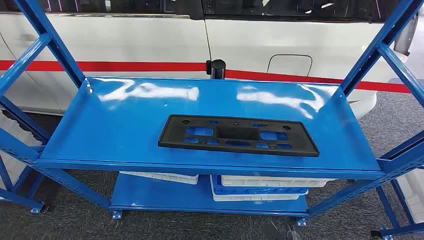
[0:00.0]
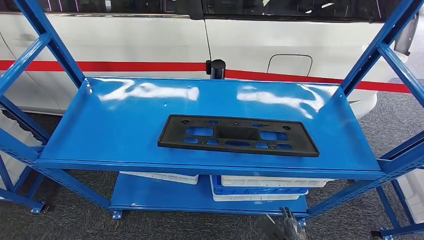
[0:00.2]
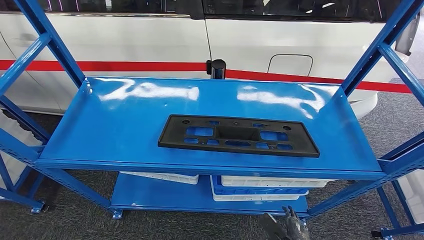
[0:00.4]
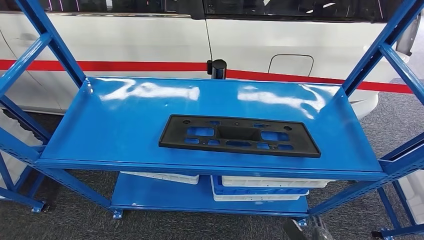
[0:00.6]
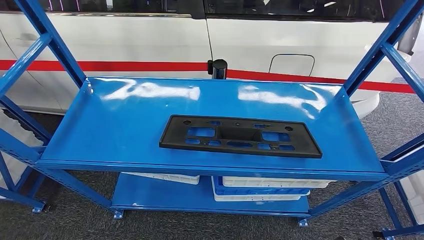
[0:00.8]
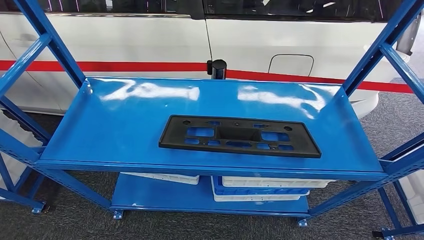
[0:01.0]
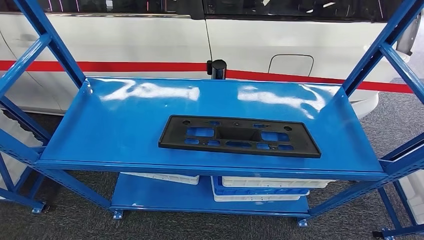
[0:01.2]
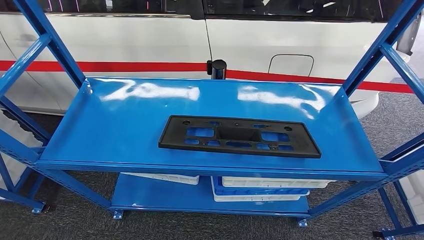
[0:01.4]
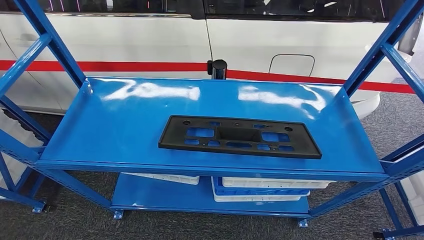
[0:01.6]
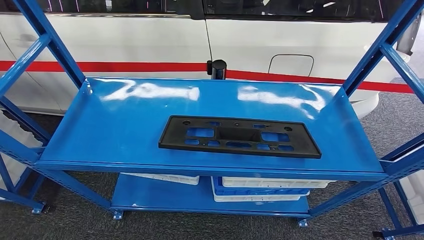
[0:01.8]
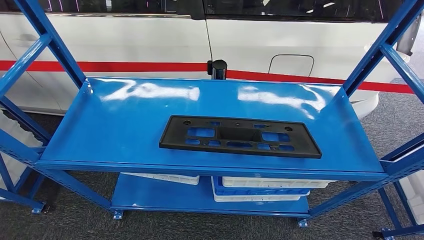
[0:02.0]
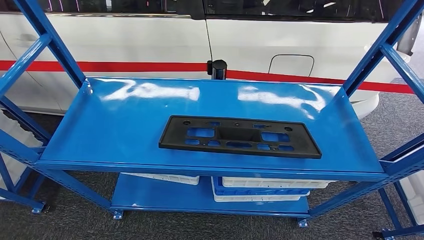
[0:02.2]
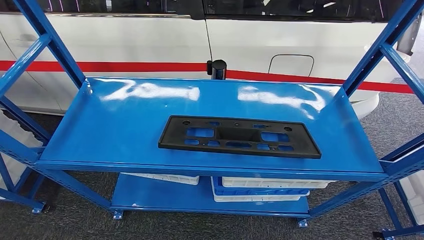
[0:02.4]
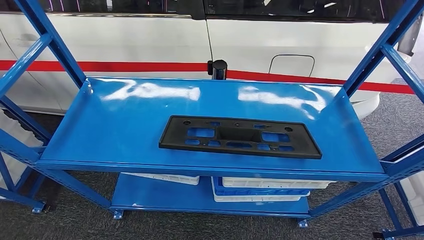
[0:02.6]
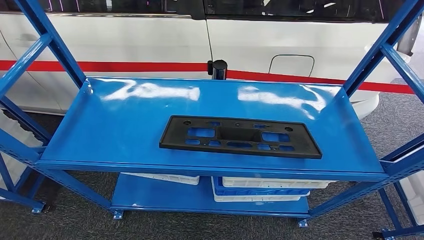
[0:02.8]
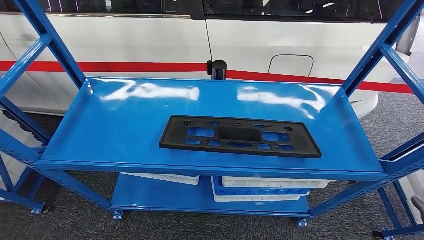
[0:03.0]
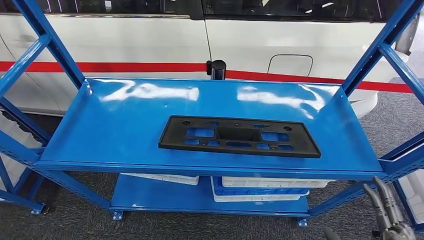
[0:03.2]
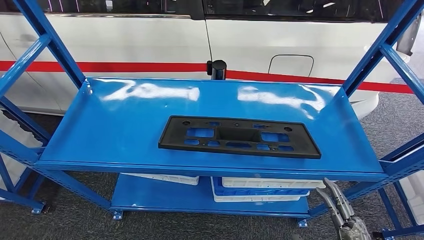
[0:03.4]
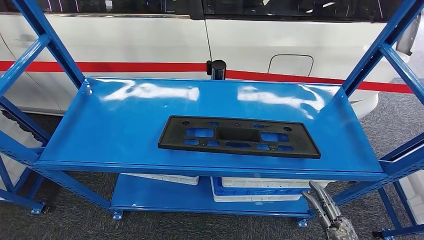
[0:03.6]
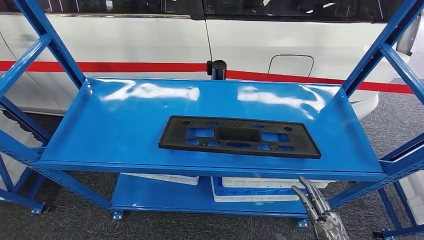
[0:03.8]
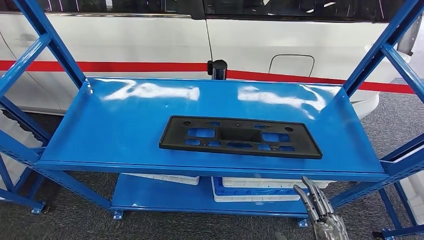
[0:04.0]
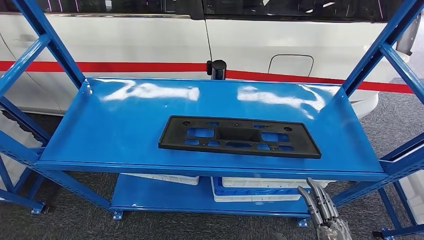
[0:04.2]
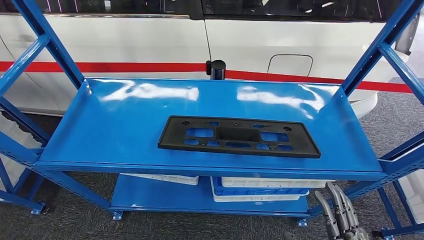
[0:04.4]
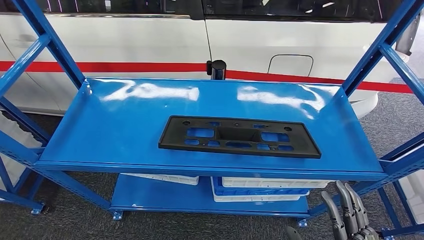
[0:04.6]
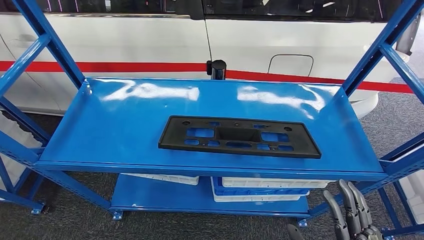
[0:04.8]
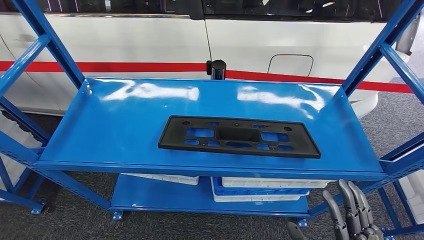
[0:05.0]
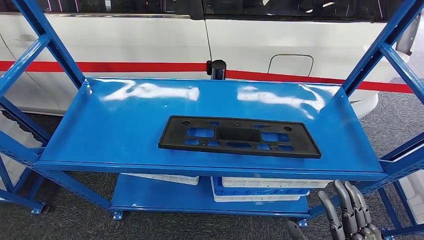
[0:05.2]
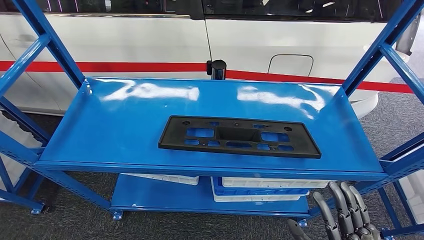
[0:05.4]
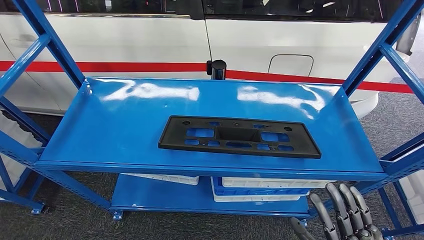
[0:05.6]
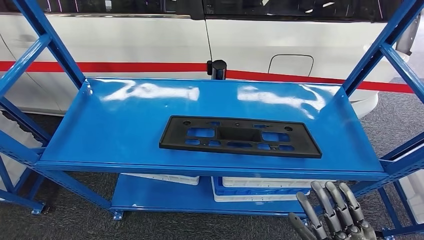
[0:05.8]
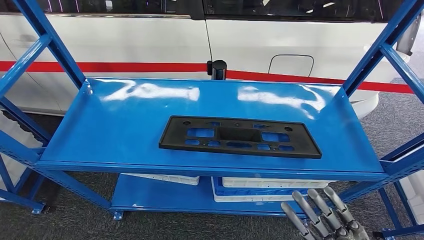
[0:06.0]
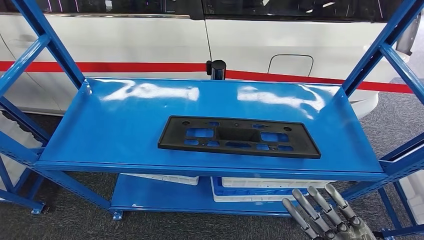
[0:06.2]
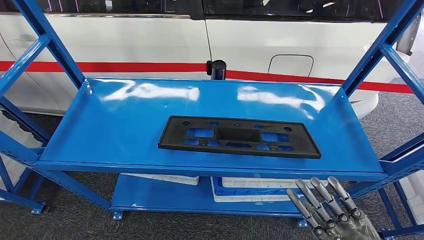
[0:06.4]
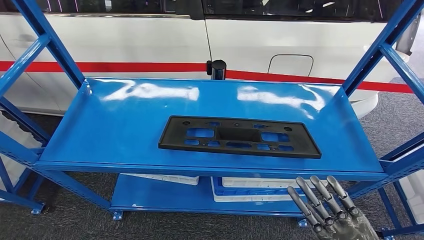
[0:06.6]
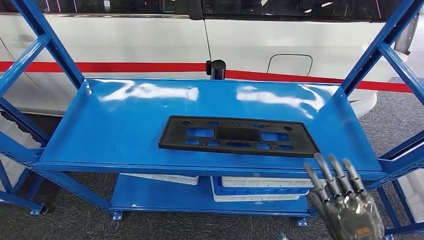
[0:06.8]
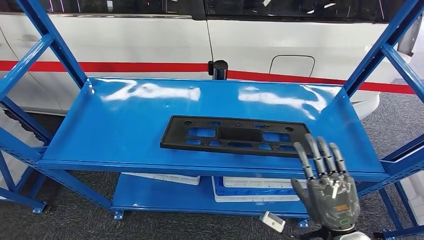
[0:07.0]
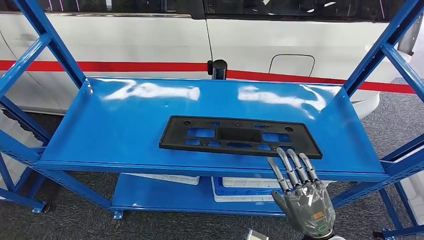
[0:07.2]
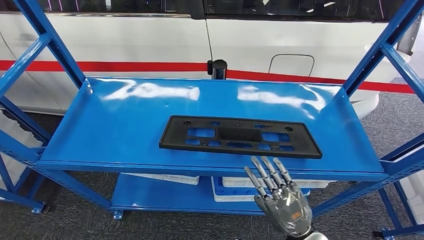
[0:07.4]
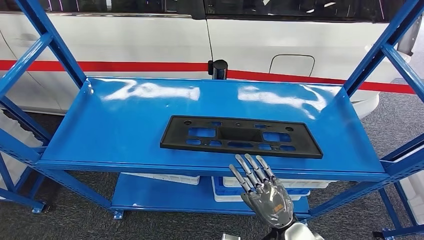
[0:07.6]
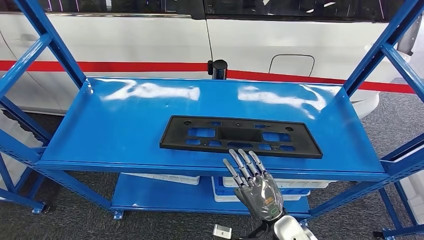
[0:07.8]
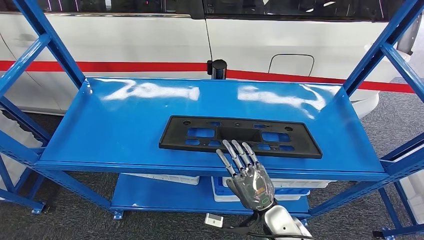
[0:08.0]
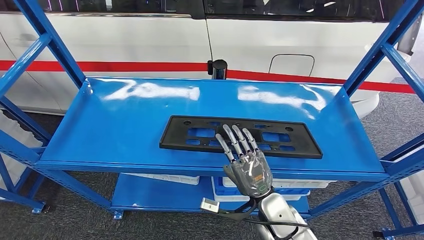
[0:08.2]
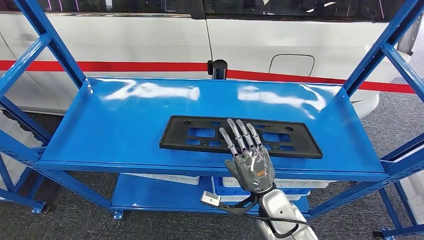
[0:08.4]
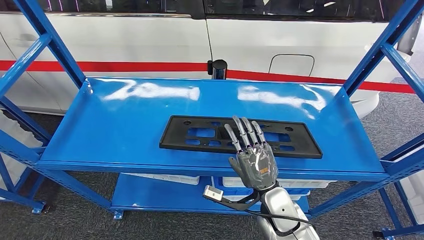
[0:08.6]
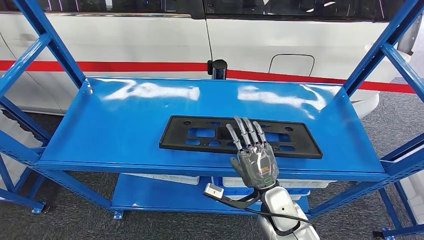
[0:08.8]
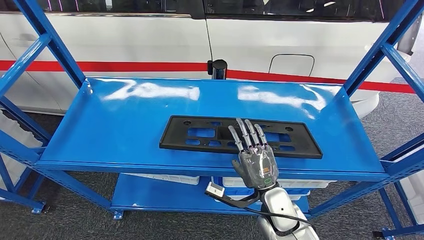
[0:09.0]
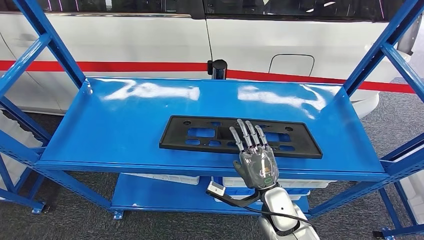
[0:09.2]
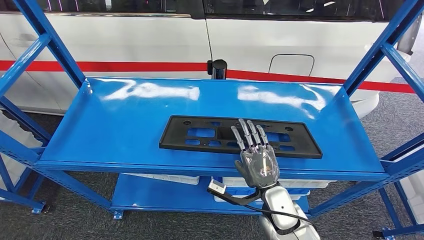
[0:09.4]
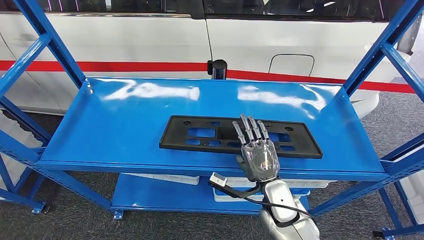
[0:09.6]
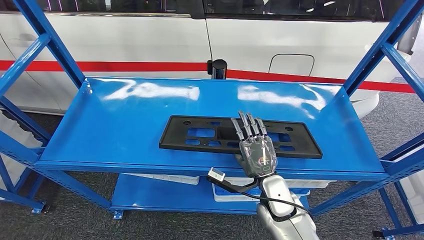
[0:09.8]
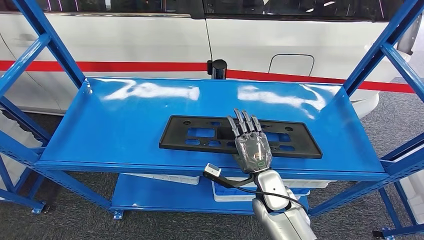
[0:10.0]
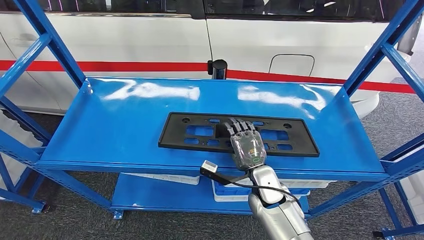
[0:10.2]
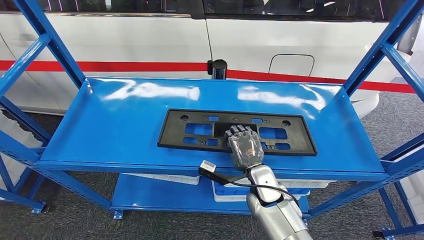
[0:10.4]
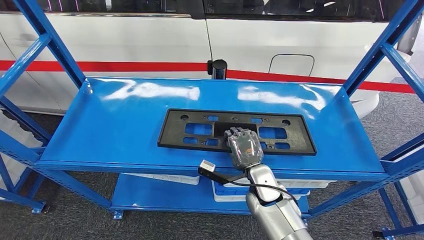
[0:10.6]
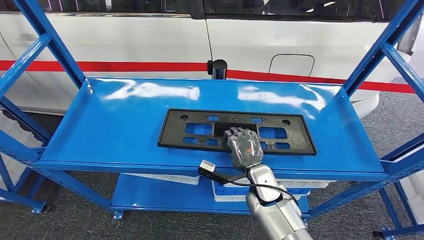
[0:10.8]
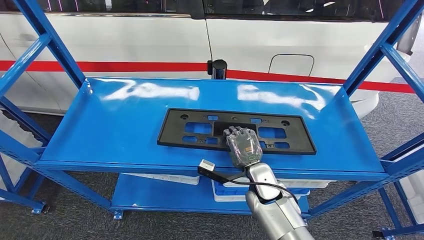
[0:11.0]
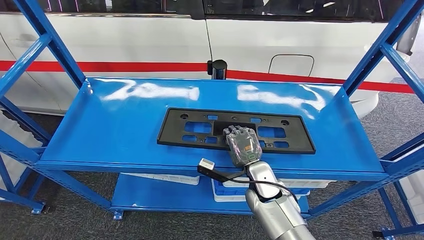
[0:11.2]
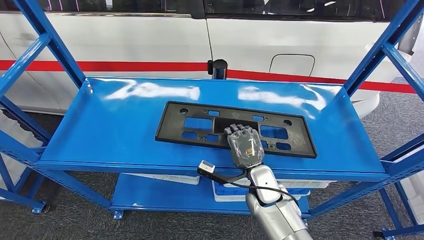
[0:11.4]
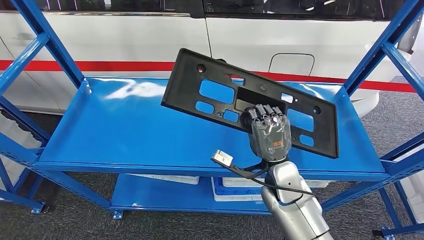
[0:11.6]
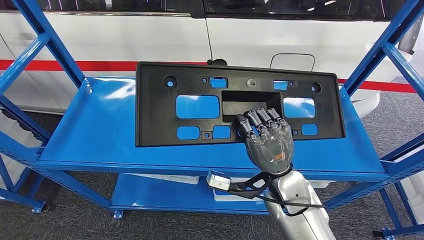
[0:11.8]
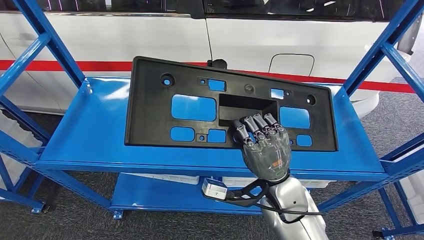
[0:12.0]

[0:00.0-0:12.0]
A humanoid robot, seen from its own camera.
0:01.6 to 0:03.0: The right hand heads to the left, forward and upward, covering about 20 cm.
0:03.0 to 0:04.4: The right hand shifts roughly 10 cm to the left.
0:04.4 to 0:06.0: The left hand is displaced to the right by some 10 cm; the right hand moves approximately 5 cm.
0:06.0 to 0:07.6: The right hand goes some 15 cm forward, downward and to the left.
0:07.6 to 0:09.0: The right hand heads forward, covering about 5 cm.
0:09.0 to 0:10.4: The right hand goes some 5 cm forward.
0:10.4 to 0:12.0: The right hand is displaced upward and backward by some 10 cm.

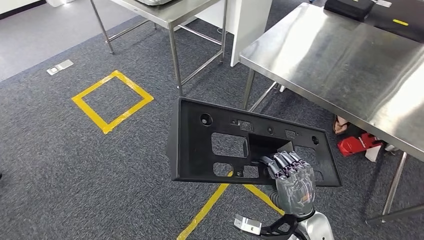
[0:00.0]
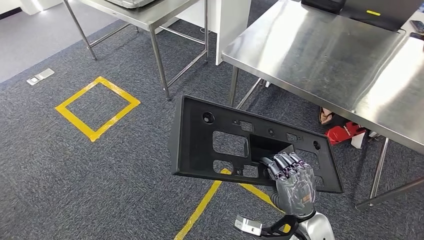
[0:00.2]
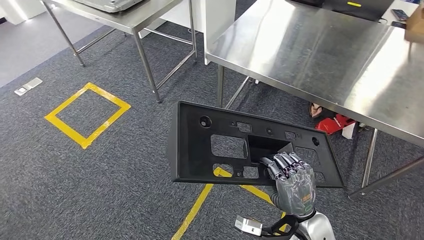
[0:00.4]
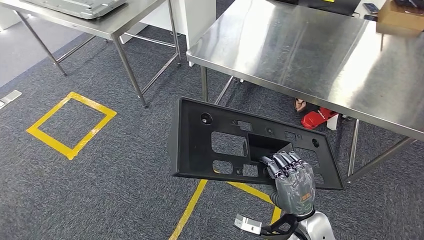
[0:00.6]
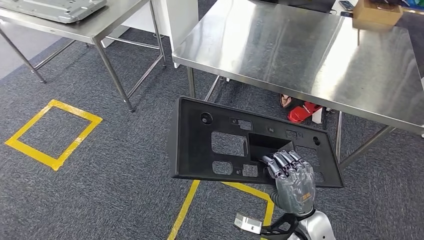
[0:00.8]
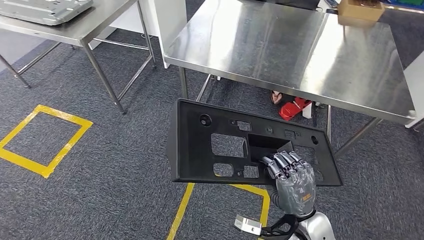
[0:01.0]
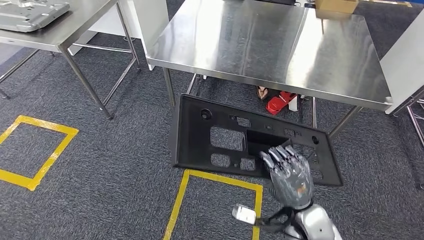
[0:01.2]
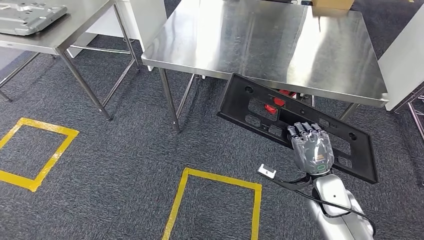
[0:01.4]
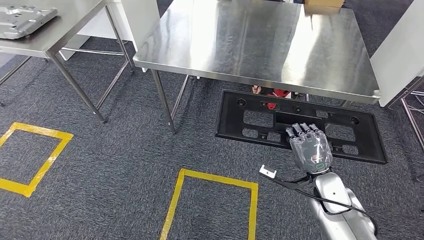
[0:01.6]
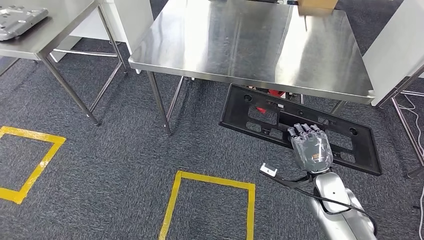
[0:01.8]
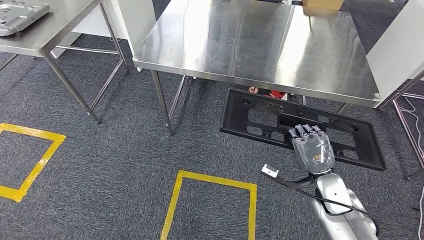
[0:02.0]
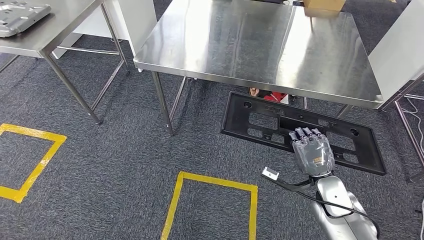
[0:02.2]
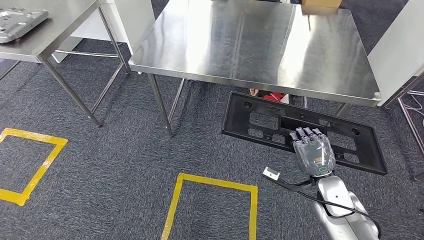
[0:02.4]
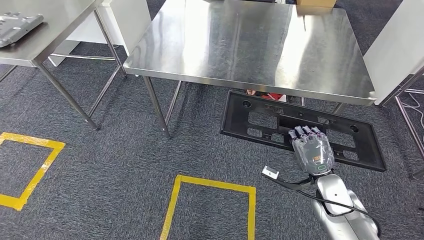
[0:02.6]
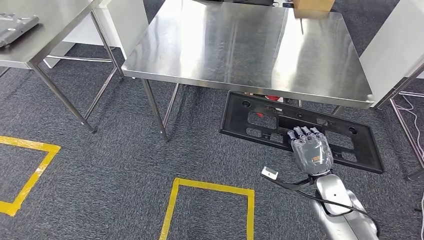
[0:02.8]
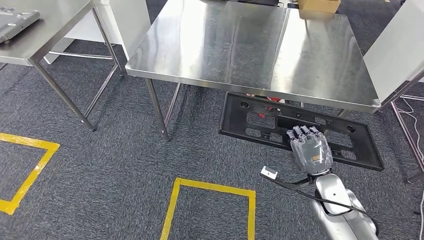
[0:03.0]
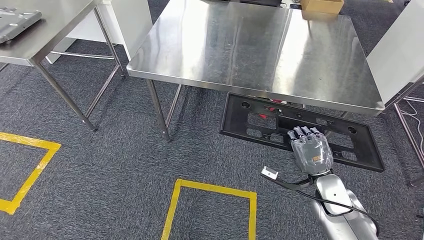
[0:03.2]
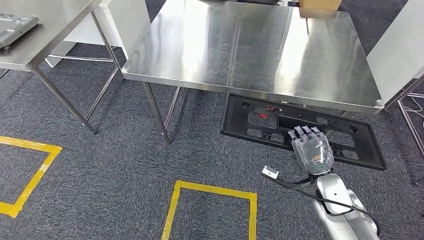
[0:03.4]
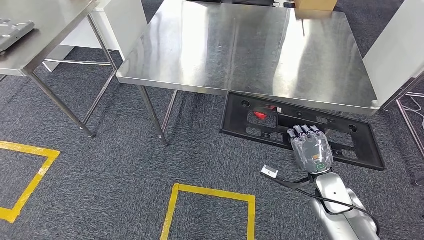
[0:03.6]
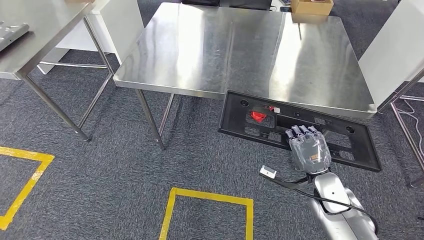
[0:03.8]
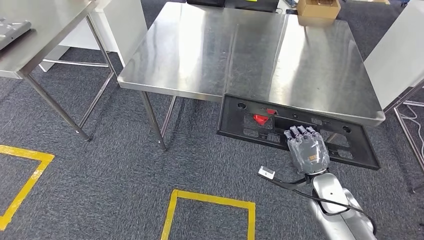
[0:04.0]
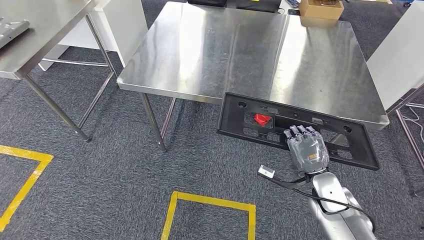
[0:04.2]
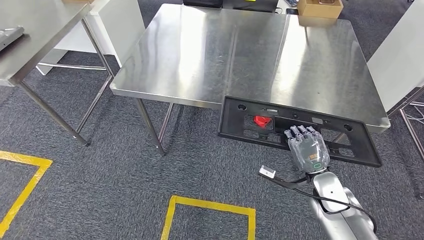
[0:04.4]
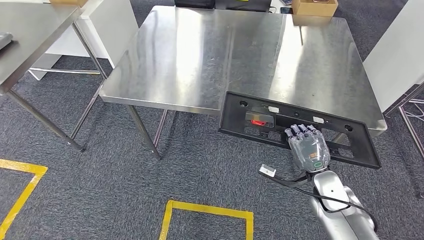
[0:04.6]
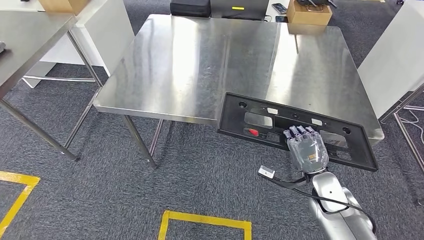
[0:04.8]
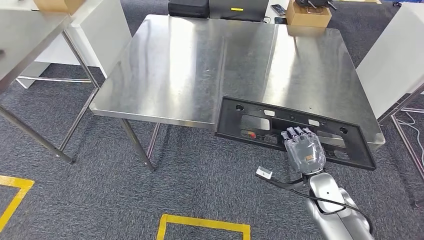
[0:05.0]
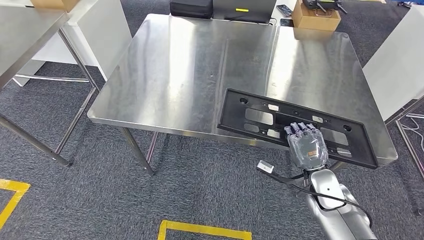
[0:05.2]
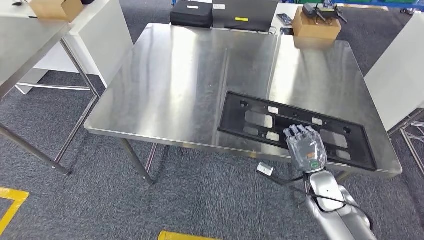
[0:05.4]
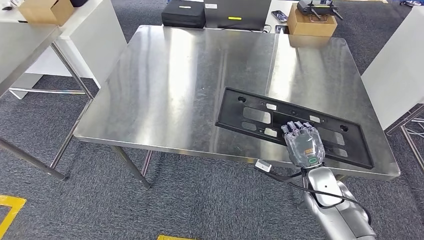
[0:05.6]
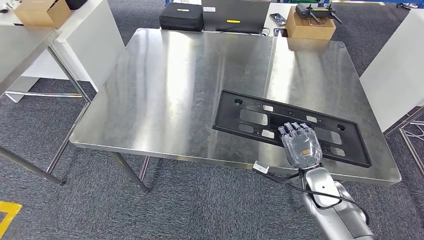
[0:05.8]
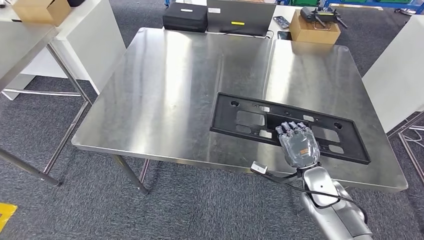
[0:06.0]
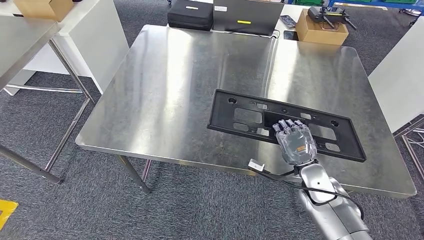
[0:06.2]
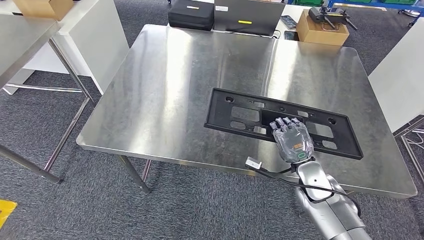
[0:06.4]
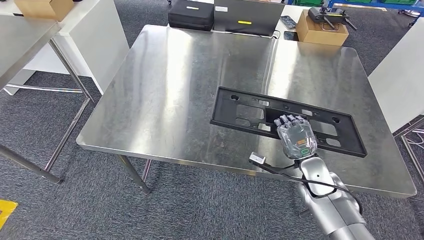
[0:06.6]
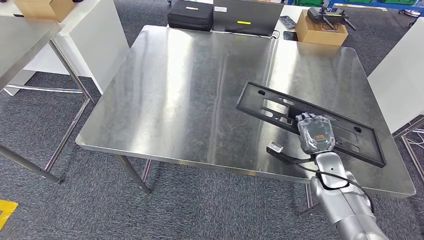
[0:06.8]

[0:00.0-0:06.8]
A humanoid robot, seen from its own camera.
Step, 0:00.0 to 0:04.6: Move the large material to the workbench.
0:02.8 to 0:04.0: Both hands stay put.
